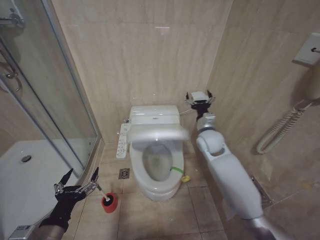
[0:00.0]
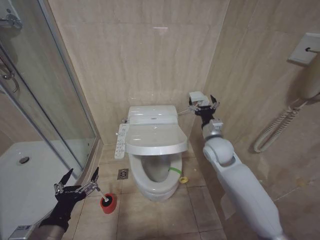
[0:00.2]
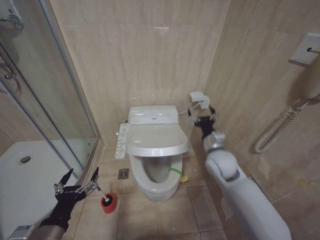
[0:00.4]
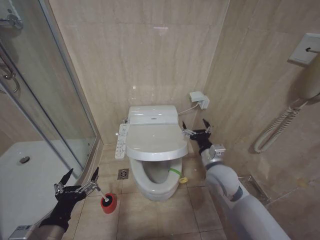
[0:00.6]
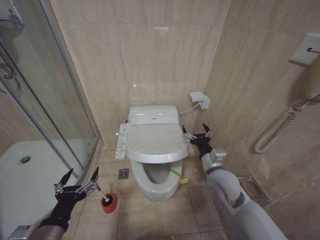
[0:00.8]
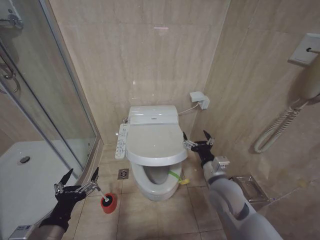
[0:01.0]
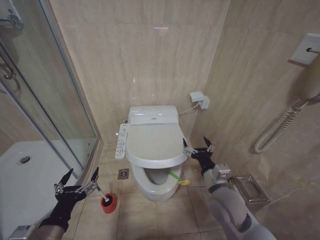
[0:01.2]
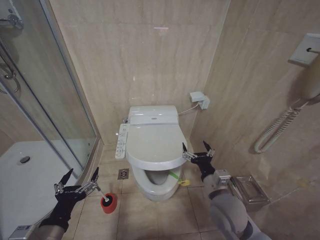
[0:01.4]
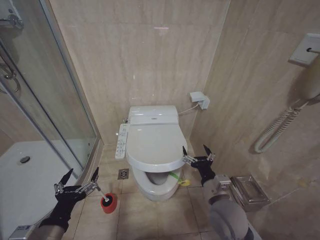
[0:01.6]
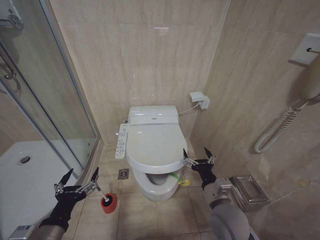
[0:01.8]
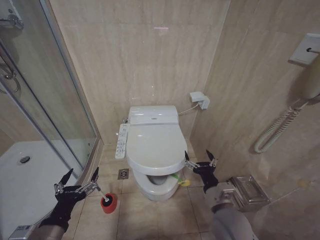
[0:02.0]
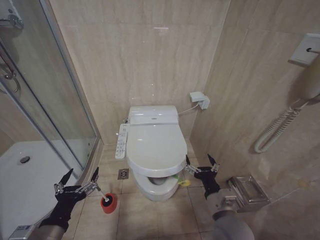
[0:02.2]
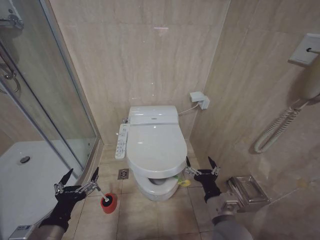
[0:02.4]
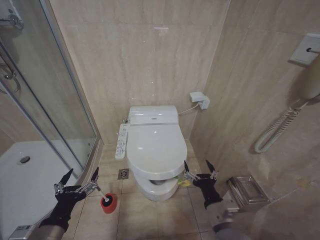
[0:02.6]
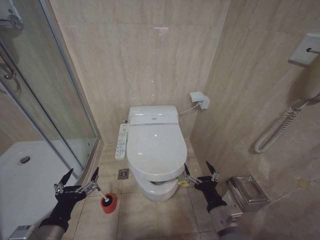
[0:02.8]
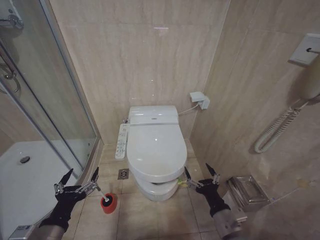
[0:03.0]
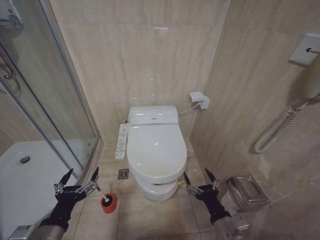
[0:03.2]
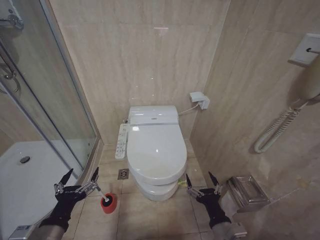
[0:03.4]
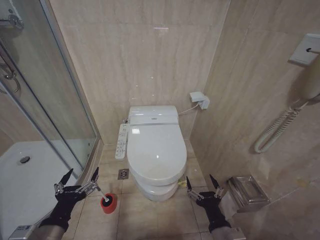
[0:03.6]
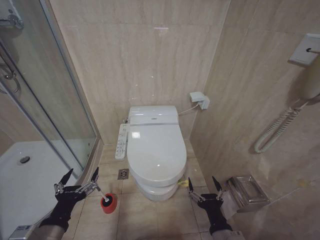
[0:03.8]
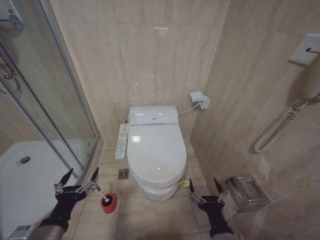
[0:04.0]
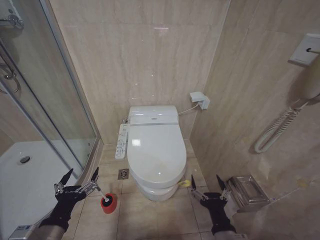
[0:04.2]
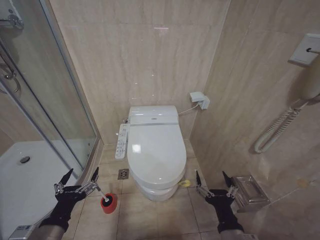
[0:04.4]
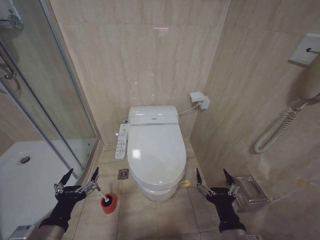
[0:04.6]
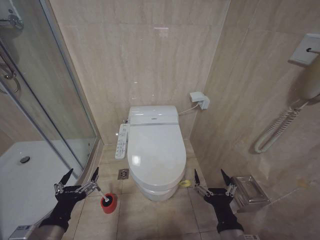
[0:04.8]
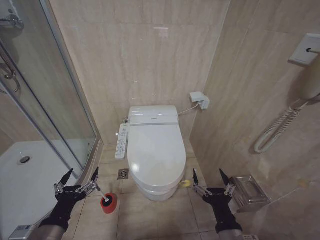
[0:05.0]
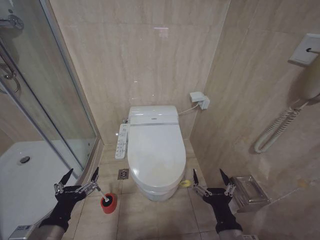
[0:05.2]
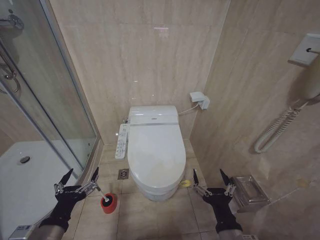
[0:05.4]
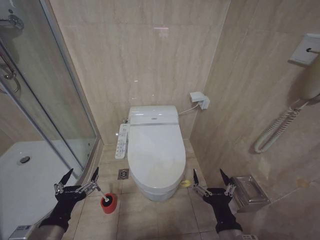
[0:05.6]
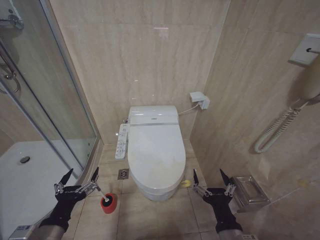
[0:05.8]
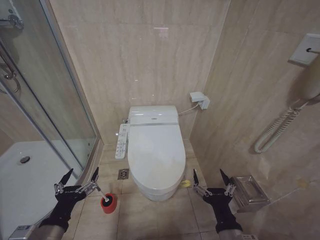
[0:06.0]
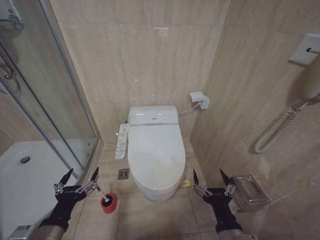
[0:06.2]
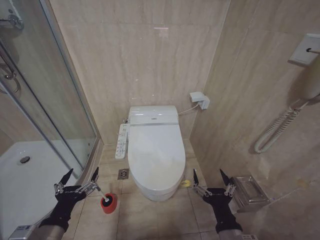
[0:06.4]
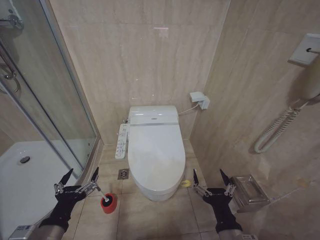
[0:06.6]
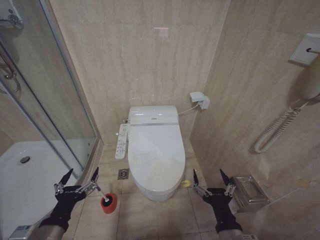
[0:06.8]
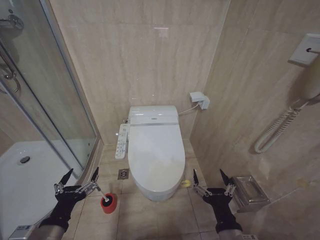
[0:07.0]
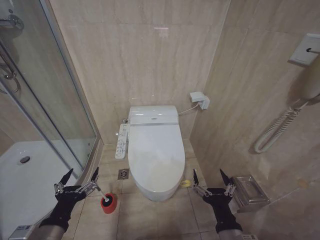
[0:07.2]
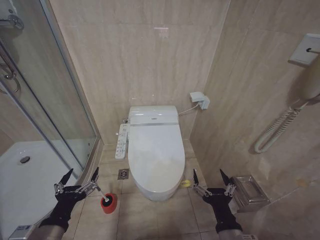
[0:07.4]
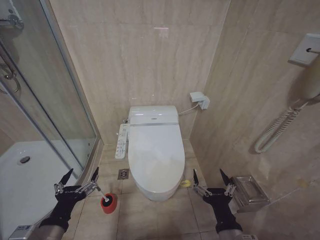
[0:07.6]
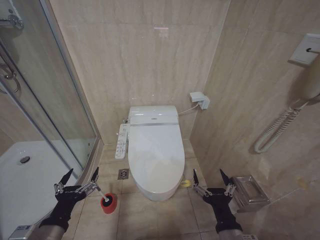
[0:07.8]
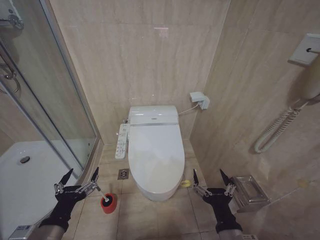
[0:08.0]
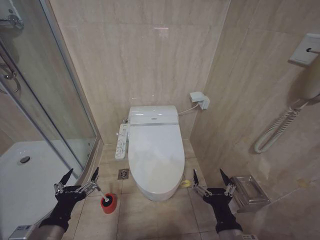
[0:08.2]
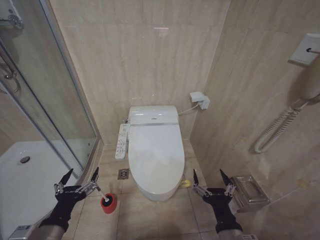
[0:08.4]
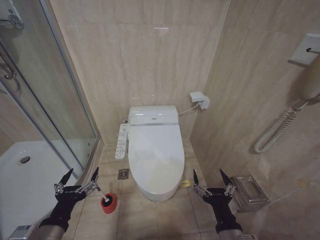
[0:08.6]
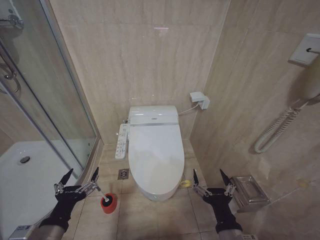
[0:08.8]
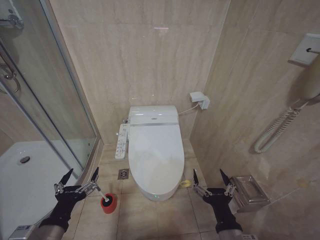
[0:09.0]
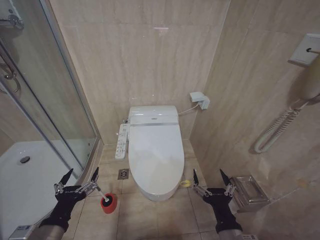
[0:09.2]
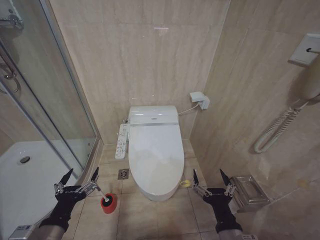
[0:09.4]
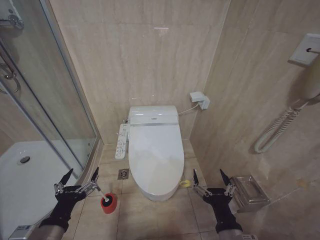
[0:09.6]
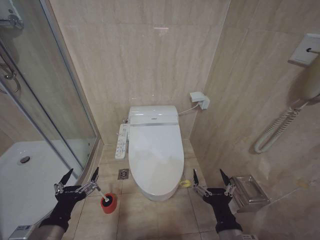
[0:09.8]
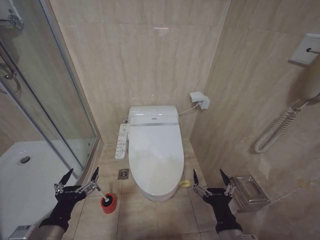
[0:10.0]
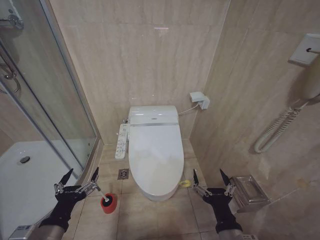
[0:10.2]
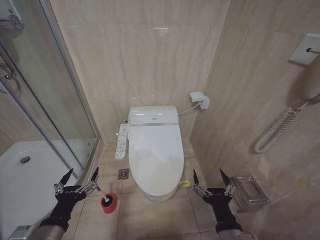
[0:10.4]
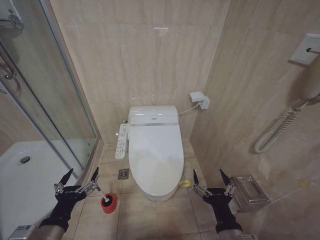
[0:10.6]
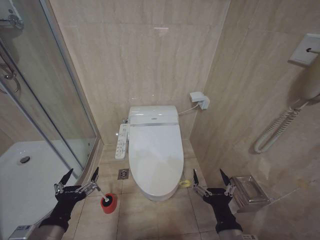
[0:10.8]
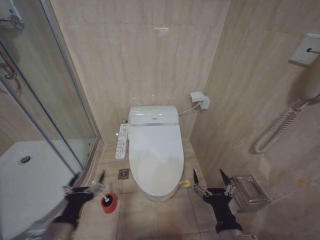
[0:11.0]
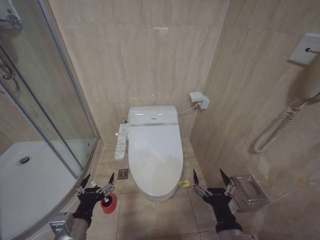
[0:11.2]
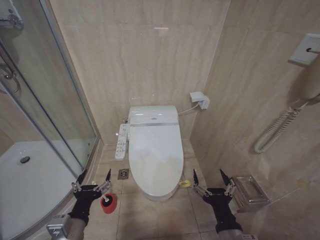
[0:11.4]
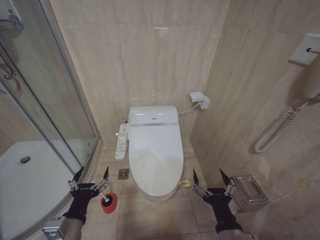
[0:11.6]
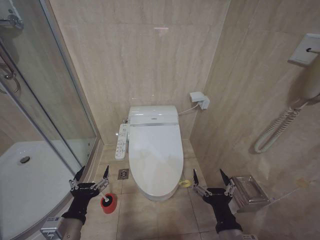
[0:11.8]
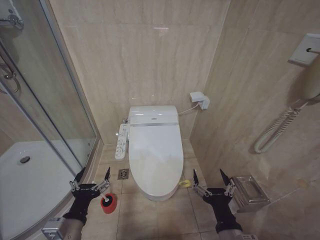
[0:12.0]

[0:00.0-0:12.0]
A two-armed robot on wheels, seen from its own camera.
Task of the whole recording: Open the toilet lid, clean the toilet bowl with a toilet brush, close the toilet lid, and flush.
0:00.0 to 0:01.6: The right gripper is displaced backward by approximately 20 cm.
0:01.6 to 0:03.0: The right gripper is displaced backward by some 10 cm.
0:03.0 to 0:04.4: The right gripper shifts about 5 cm backward.
0:06.0 to 0:10.4: Both grippers stay about where they are.
0:10.4 to 0:12.0: There are only small adjustments of the grippers.

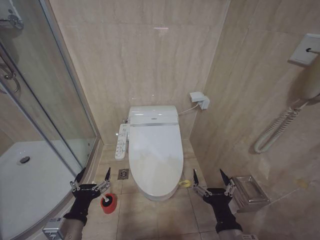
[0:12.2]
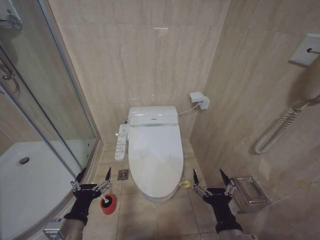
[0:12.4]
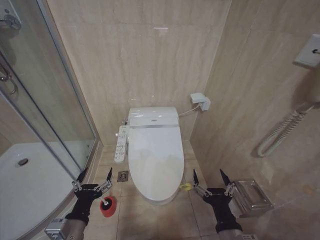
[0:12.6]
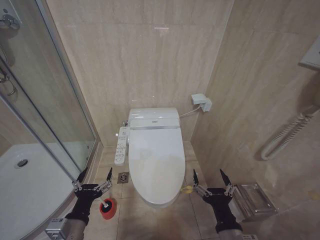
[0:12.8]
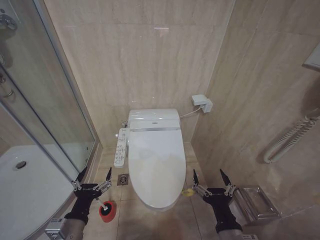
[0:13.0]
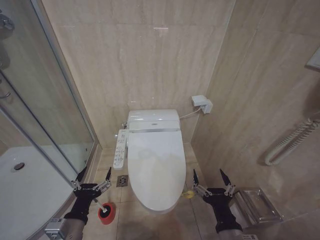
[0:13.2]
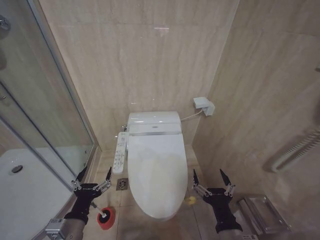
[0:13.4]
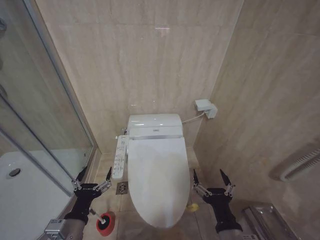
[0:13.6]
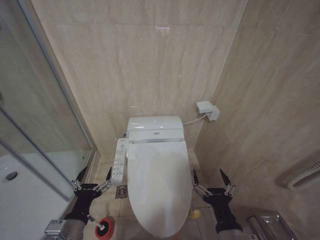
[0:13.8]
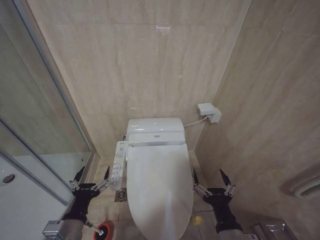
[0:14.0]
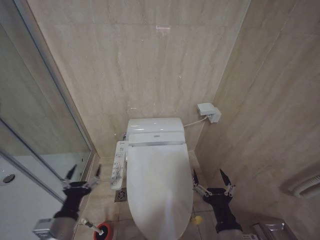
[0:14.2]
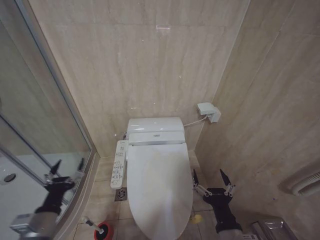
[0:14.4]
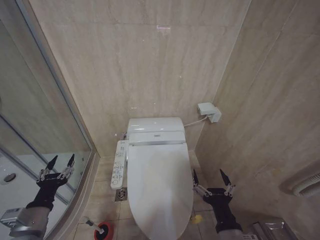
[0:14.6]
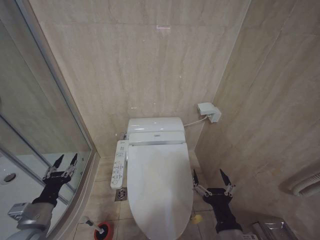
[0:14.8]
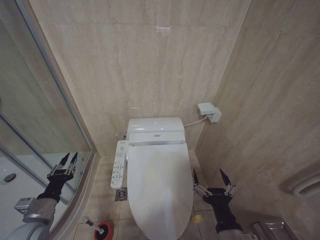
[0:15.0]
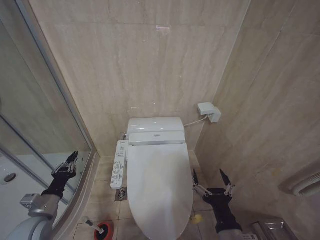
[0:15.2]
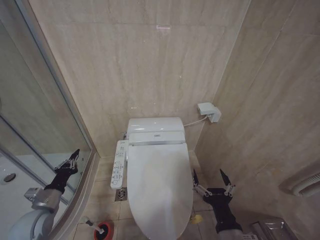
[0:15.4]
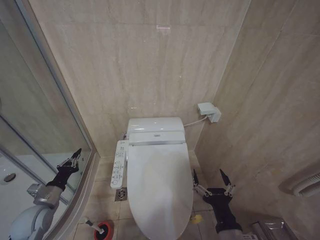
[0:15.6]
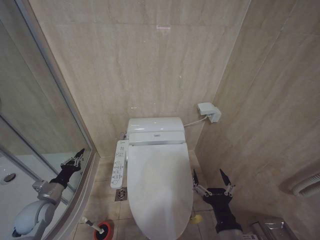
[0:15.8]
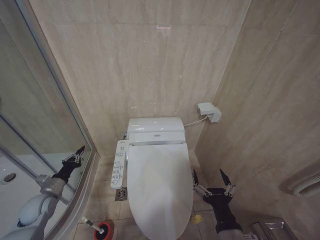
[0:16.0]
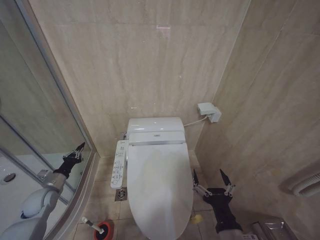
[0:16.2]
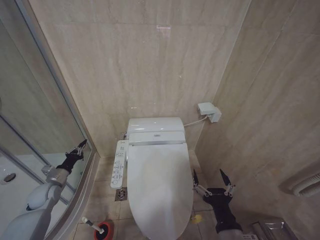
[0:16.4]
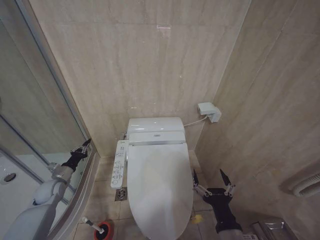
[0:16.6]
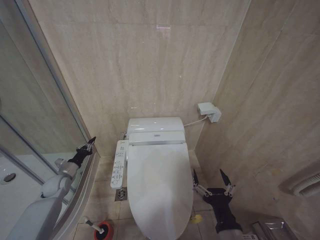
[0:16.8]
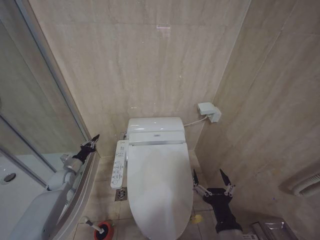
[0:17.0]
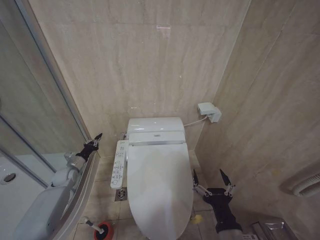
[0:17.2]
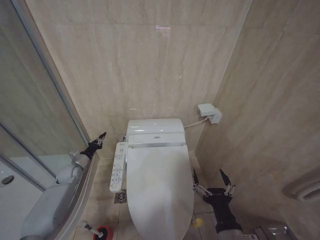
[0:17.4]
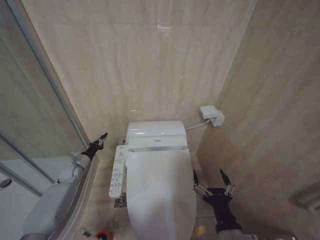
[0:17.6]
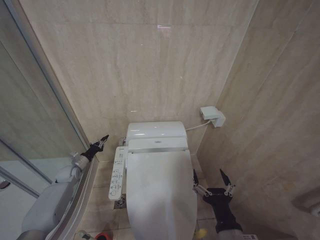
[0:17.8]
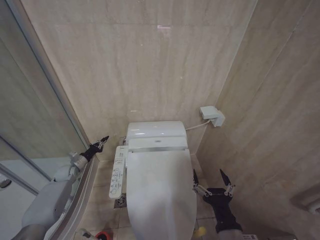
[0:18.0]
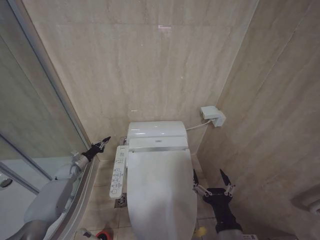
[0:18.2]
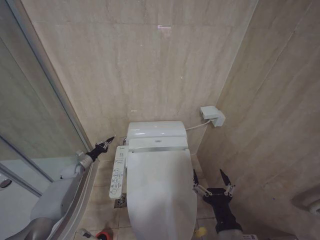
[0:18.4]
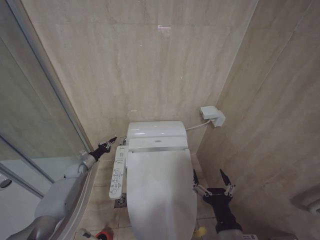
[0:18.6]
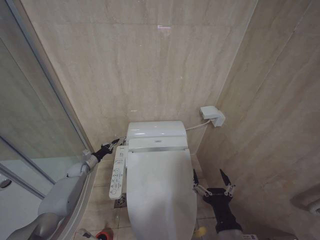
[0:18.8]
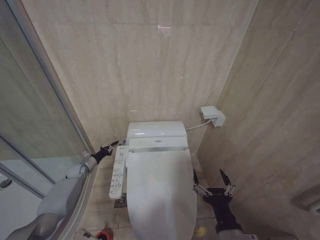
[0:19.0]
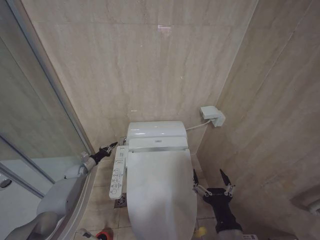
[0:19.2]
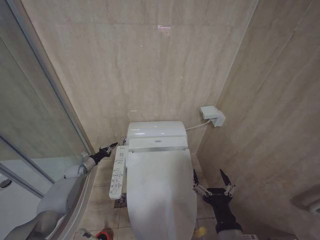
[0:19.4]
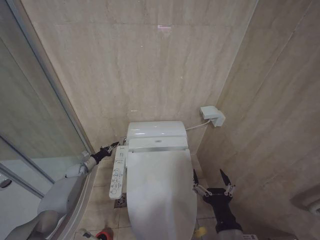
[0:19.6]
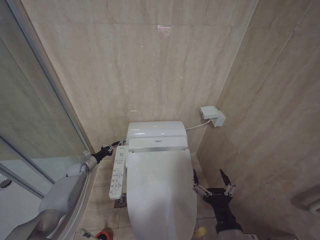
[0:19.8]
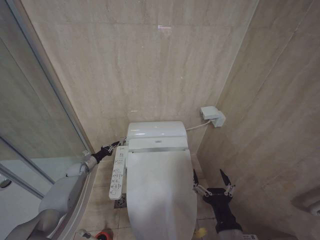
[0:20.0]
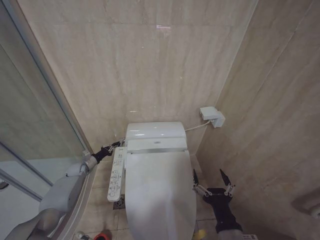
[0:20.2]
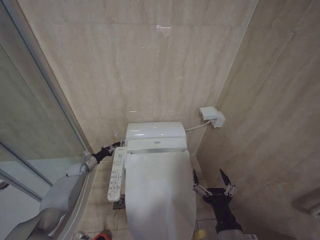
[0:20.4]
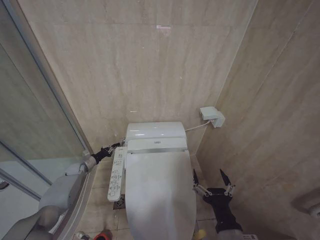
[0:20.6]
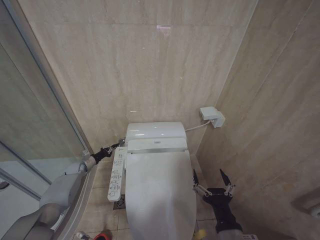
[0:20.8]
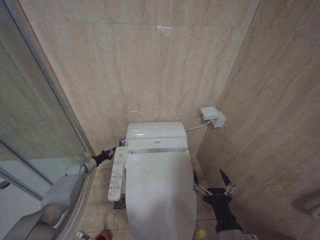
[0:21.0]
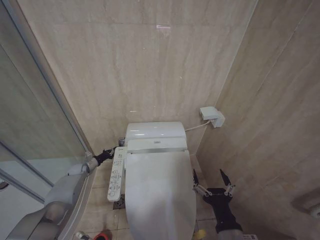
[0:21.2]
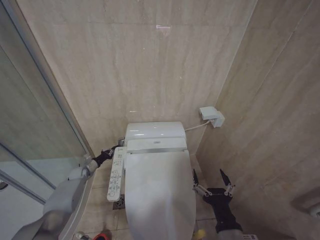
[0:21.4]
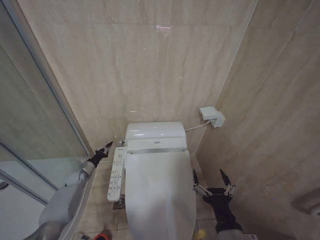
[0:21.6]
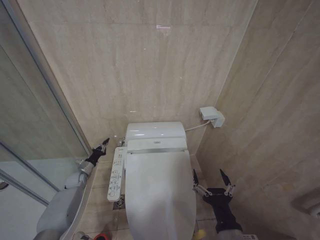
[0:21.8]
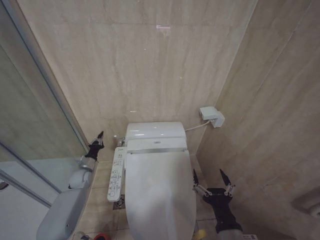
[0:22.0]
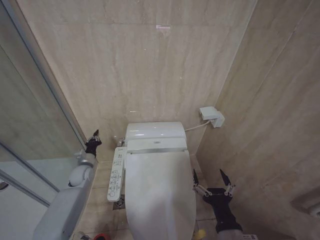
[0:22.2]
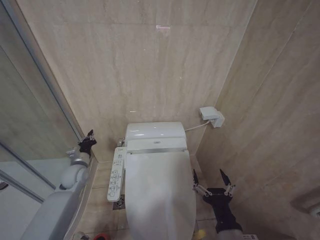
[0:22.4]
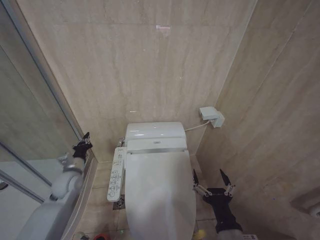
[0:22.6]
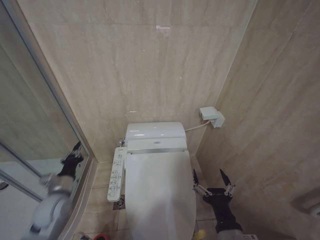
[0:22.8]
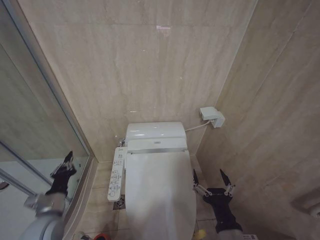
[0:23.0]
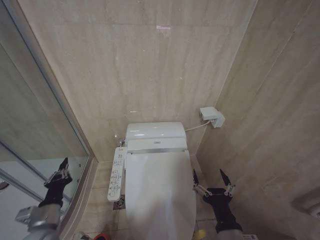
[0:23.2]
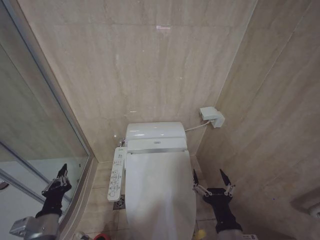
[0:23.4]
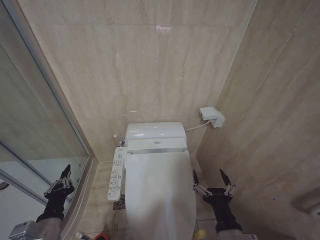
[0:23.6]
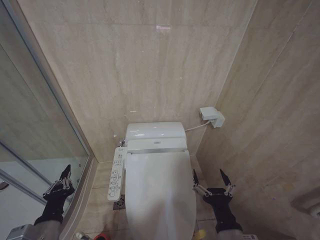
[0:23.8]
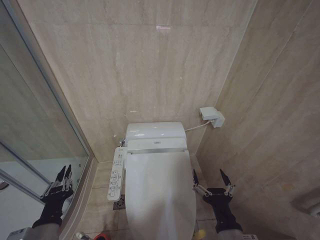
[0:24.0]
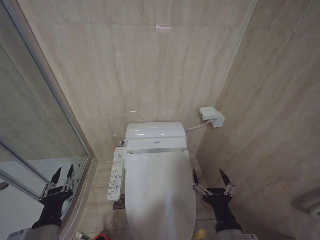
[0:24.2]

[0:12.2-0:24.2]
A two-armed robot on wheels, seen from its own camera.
Task of the whole recording: Open the toilet lid, clean the toilet bowl with a toilet brush, close the toilet lid, and flush.
0:12.2 to 0:13.8: The grippers stay close to where they were, moving slightly.
0:13.8 to 0:15.2: The left gripper is displaced to the left and forward by about 15 cm, and closes.
0:15.2 to 0:16.6: The left gripper moves forward and to the left, about 15 cm, and closes up.
0:16.6 to 0:18.2: The left gripper heads forward, covering about 10 cm.
0:18.2 to 0:21.2: The grippers move only a little.
0:21.2 to 0:22.6: The left gripper goes some 20 cm upward, backward and to the right.
0:22.6 to 0:24.2: The left gripper goes approximately 25 cm backward.
